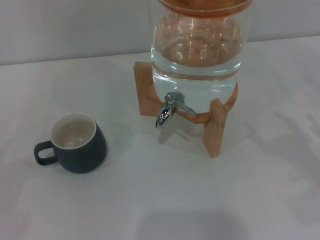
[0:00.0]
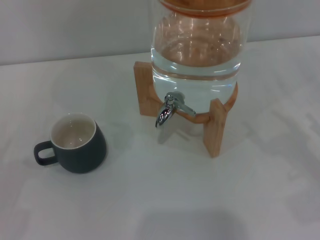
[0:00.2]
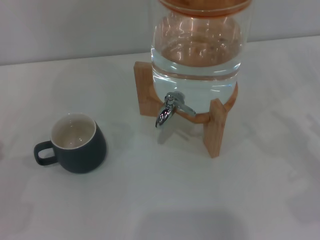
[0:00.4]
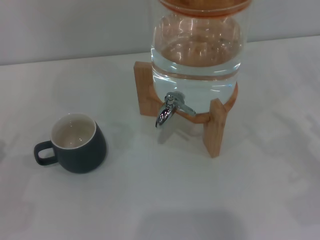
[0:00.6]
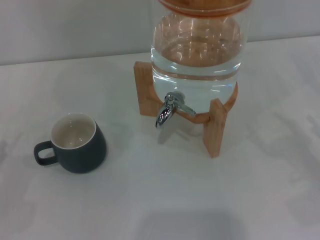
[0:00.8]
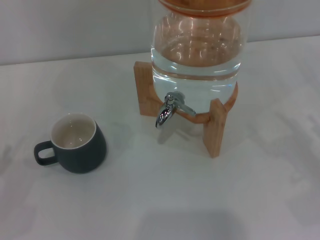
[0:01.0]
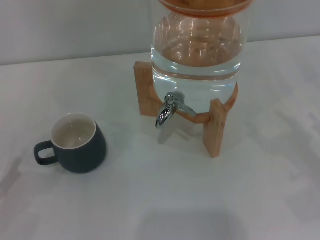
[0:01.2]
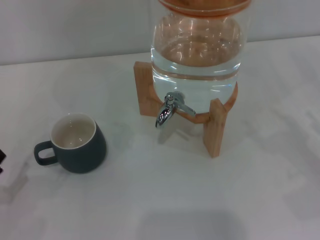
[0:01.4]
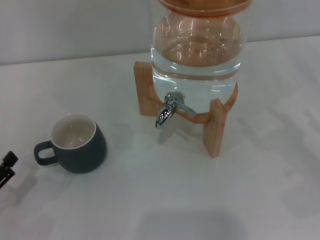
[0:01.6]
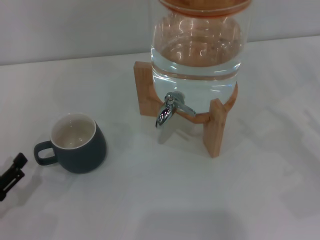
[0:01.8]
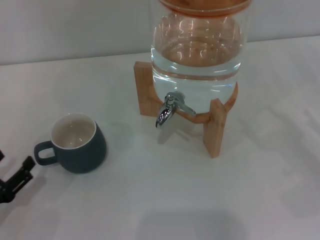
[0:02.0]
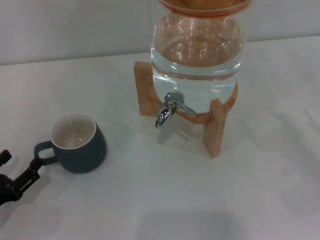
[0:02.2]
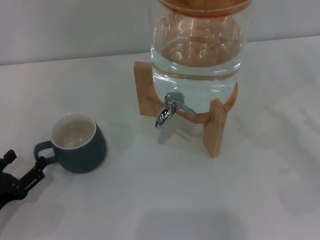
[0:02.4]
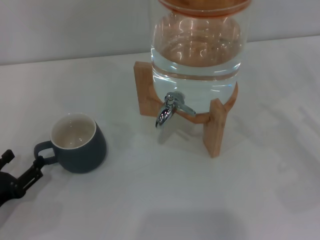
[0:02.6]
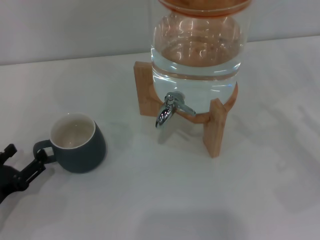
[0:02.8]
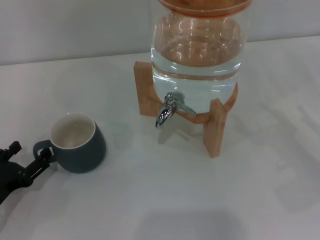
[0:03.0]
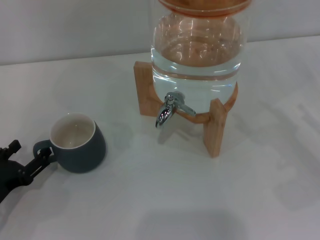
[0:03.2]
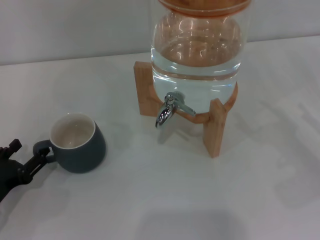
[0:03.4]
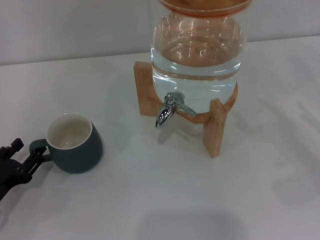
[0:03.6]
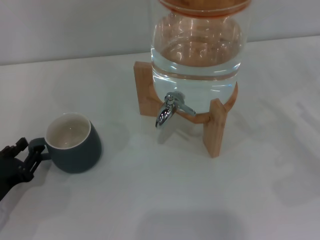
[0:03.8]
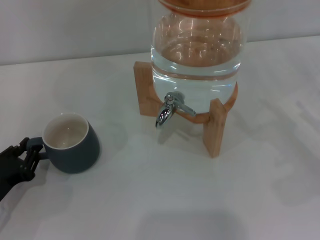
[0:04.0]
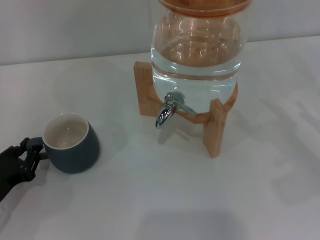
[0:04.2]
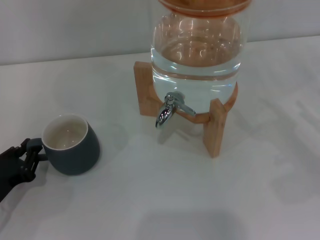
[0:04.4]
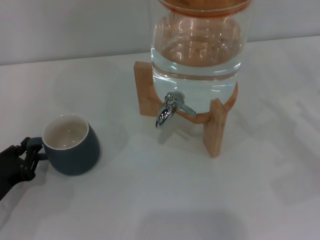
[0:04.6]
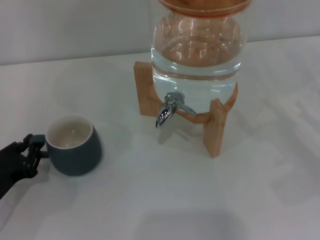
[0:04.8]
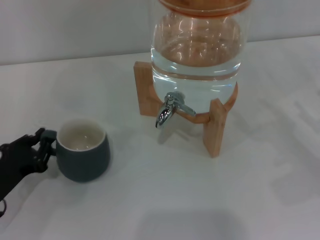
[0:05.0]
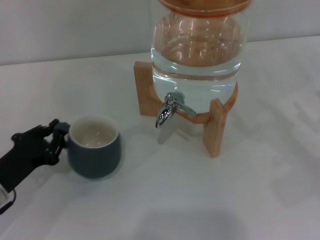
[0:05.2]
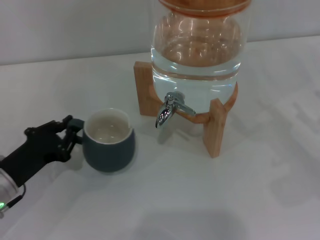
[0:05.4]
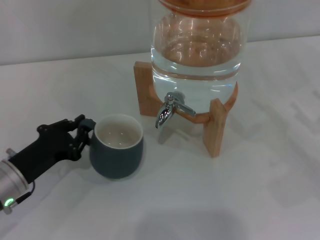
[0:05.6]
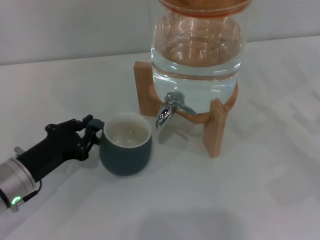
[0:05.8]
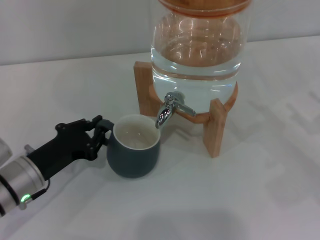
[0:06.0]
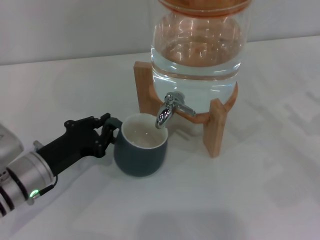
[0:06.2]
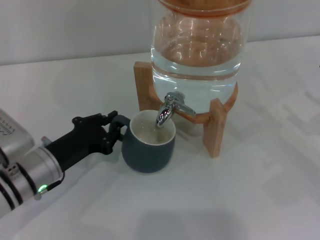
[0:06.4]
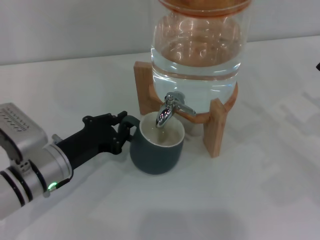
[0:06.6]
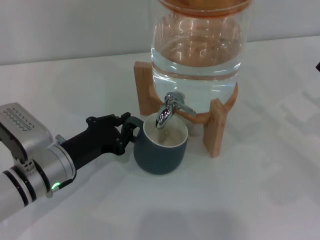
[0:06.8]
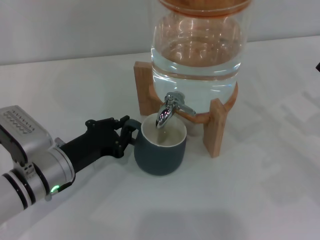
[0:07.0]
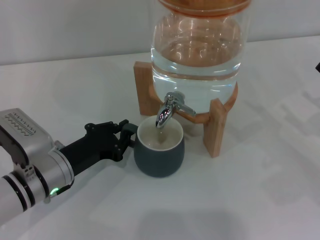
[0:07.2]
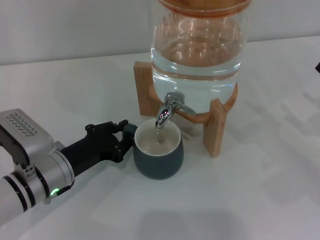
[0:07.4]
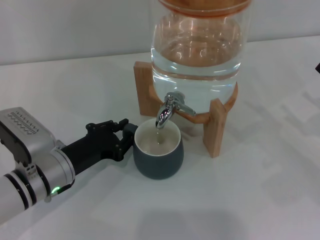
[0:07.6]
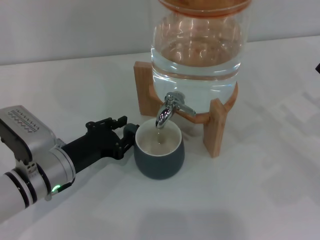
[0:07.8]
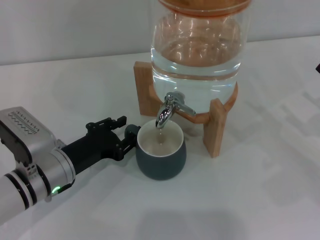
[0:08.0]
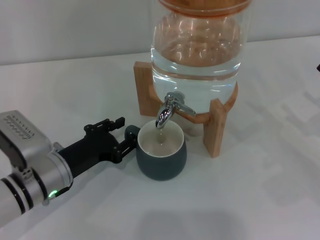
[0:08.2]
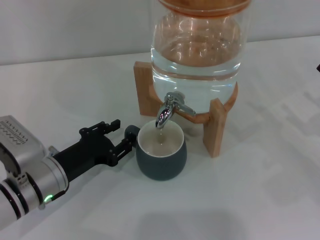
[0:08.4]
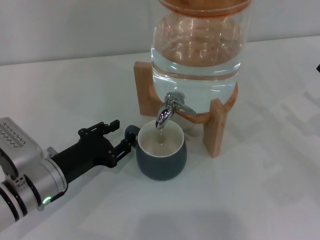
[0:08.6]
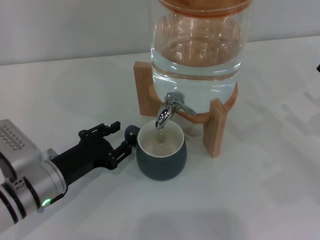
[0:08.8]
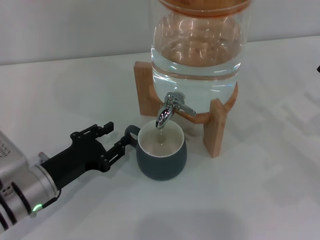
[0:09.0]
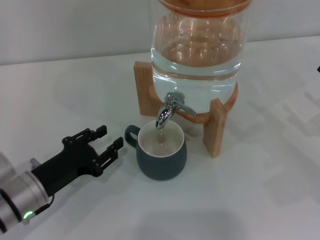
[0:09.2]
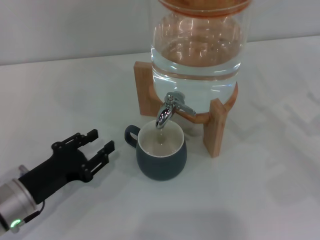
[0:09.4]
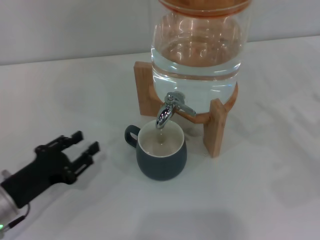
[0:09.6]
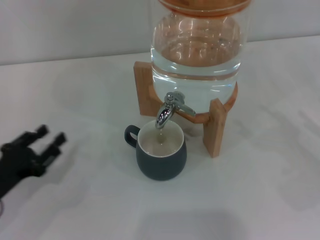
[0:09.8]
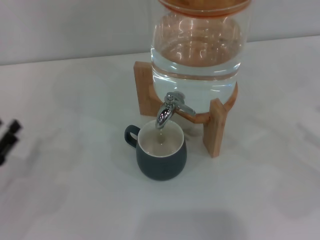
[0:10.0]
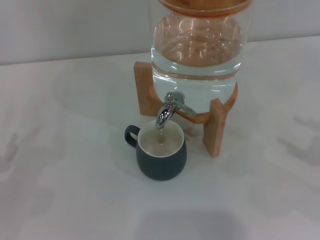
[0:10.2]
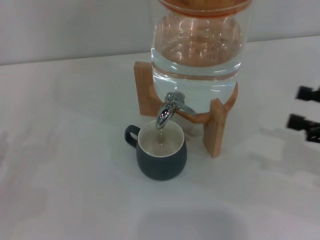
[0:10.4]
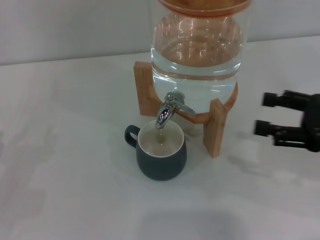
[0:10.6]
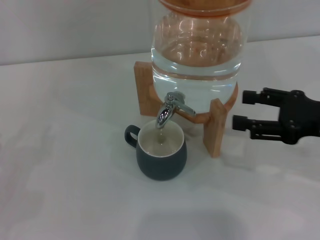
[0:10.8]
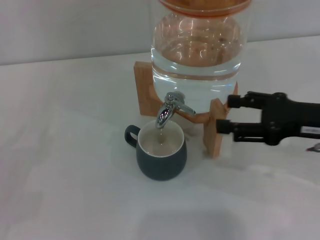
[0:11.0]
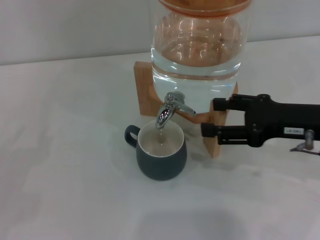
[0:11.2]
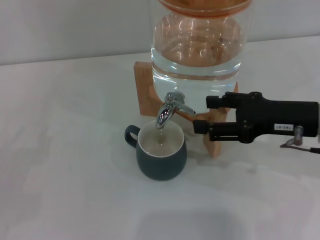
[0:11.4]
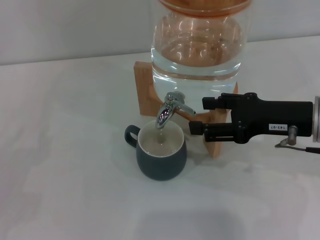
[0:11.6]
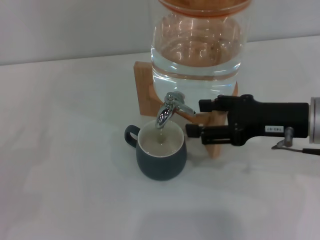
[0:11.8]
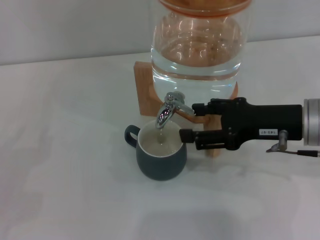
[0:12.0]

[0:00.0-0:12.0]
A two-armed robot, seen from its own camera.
Task of the whole recording: the left gripper pick up the black cup and place it horizontally under the faucet, the right gripper turn on the faucet to fill the cup, and then turn off the faucet.
Step, 0:00.0 to 0:09.2: Move the cup beneath the water dispenser nozzle with the left gripper.
0:01.6 to 0:03.0: The left gripper moves approximately 5 cm.
0:03.0 to 0:04.4: The left gripper closes up.
0:04.4 to 0:06.0: The left gripper shifts approximately 10 cm to the right.
0:06.0 to 0:07.6: The grippers make only small movements.
0:07.6 to 0:09.0: The left gripper opens its fingers.
0:09.0 to 0:10.4: The left gripper travels to the left by roughly 15 cm. Meanwhile the right gripper goes some 10 cm upward.
0:10.4 to 0:12.0: The right gripper shifts about 15 cm to the left and forward.

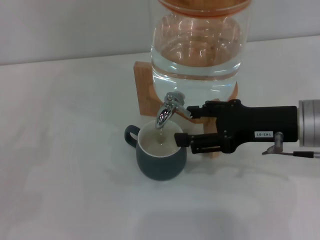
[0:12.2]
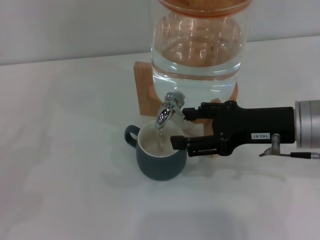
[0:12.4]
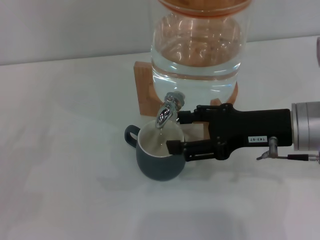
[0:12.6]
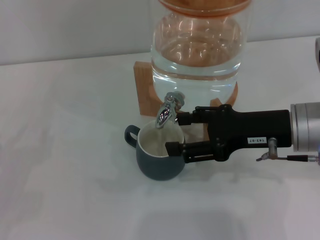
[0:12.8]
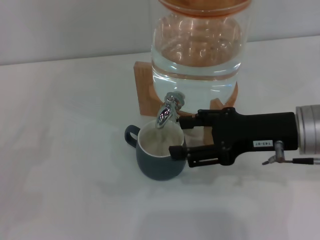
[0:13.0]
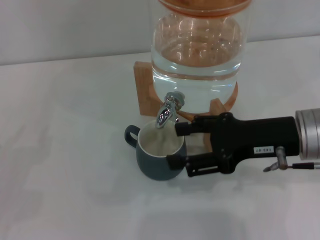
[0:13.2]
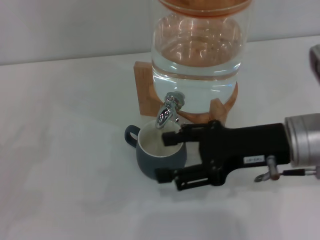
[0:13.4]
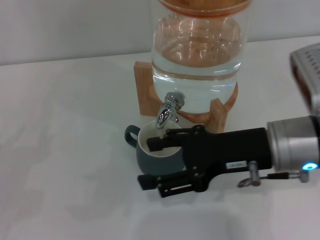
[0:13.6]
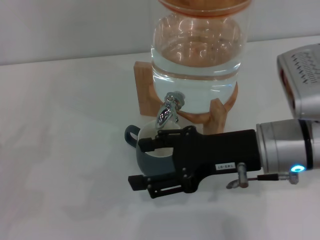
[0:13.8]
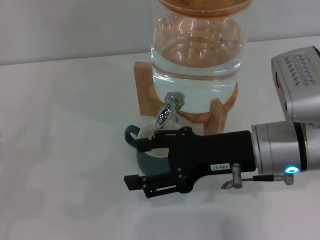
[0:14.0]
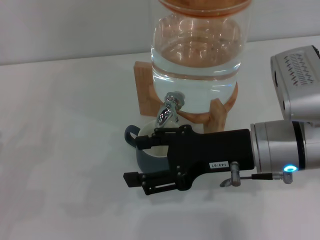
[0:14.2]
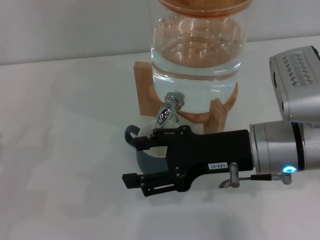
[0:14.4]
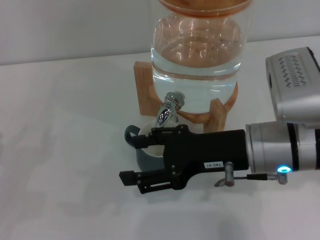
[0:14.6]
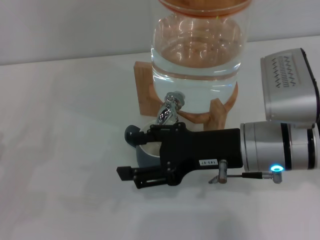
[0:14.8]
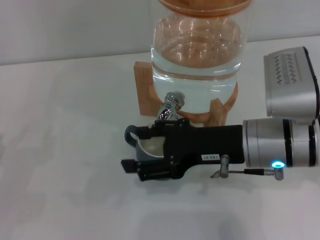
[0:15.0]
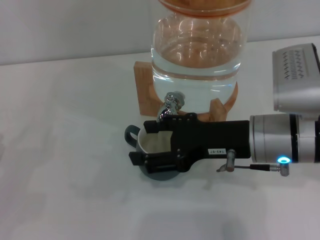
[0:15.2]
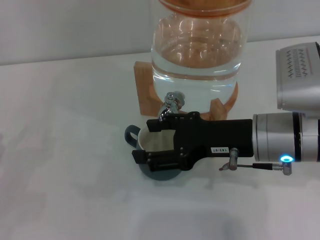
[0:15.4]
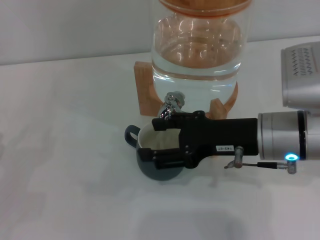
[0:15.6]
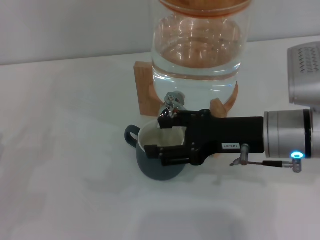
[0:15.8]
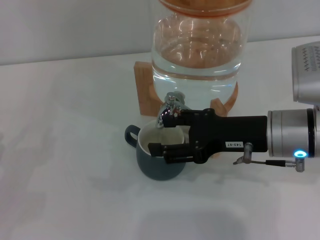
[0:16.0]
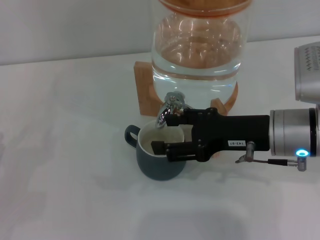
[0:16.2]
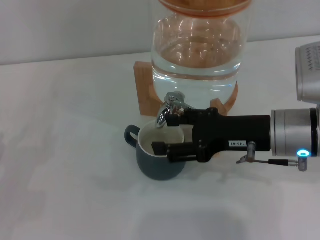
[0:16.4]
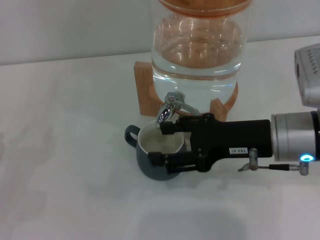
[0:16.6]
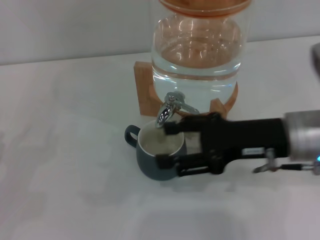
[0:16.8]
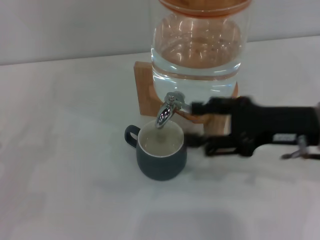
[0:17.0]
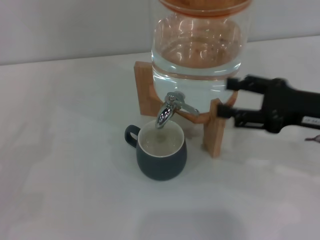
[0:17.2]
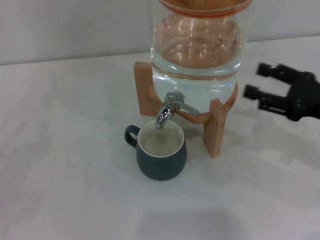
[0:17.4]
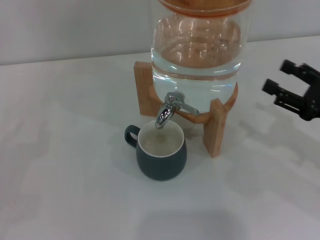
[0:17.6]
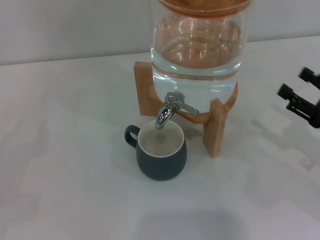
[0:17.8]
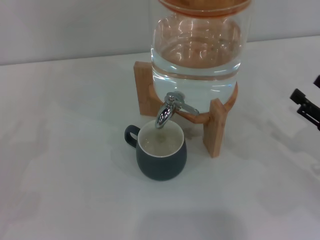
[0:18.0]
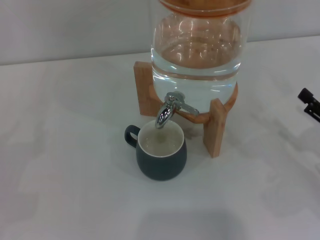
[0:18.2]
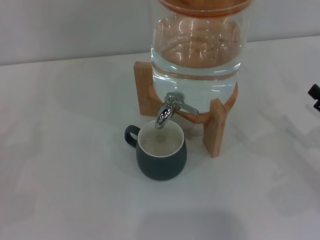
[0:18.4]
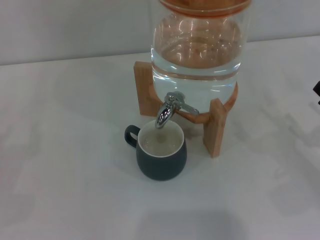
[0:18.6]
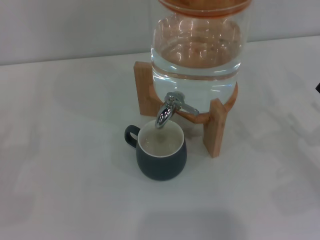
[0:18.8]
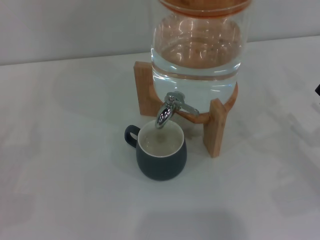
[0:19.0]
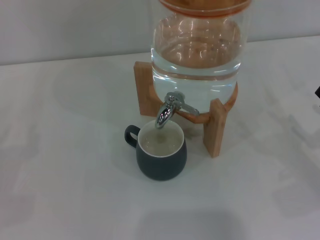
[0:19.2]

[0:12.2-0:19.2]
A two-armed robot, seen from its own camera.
Task of the whole recording: the left gripper pick up the black cup and place it horizontally under the faucet, the right gripper turn on the faucet to fill the cup, and then turn off the faucet.
Step, 0:13.2 to 0:16.4: Close the dispenser valve with the right gripper.
0:12.2 to 0:13.6: The grippers move only a little.
0:13.6 to 0:16.4: The grippers move only a little.
0:16.4 to 0:17.8: The right gripper shifts some 15 cm to the right and downward.
0:17.8 to 0:19.2: There are only small adjustments of the grippers.

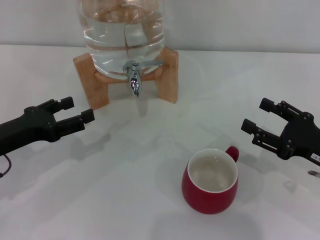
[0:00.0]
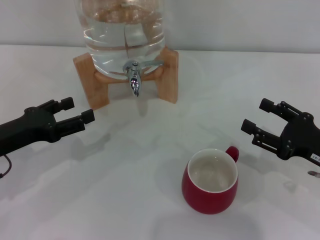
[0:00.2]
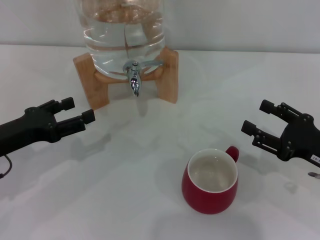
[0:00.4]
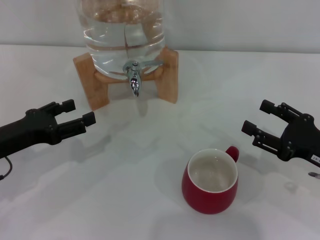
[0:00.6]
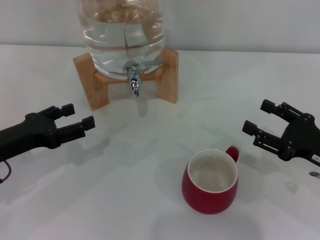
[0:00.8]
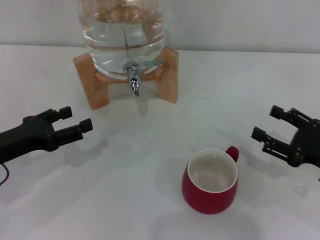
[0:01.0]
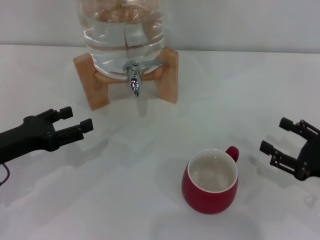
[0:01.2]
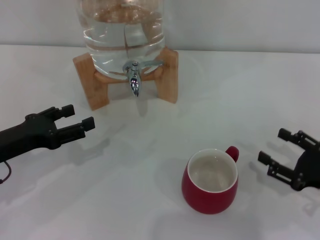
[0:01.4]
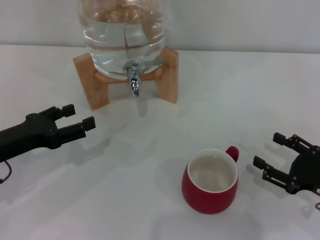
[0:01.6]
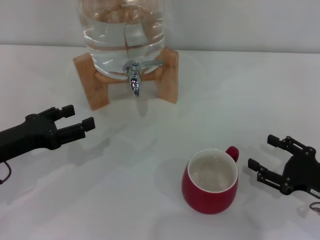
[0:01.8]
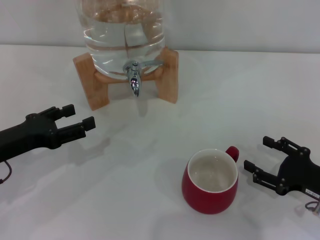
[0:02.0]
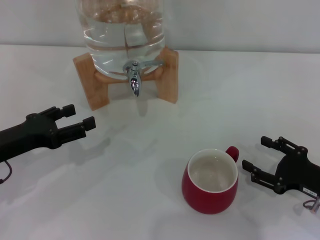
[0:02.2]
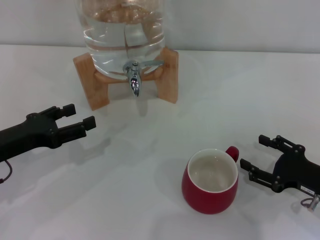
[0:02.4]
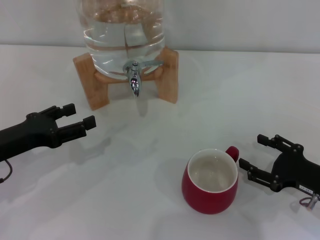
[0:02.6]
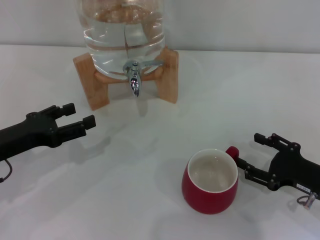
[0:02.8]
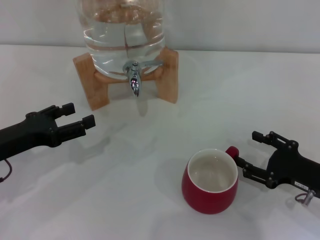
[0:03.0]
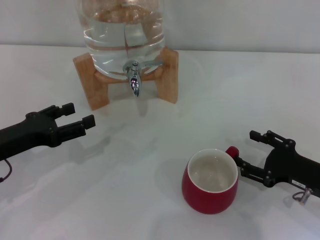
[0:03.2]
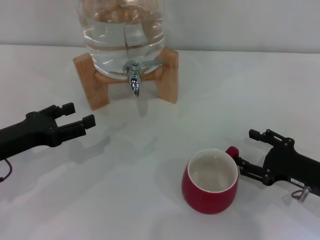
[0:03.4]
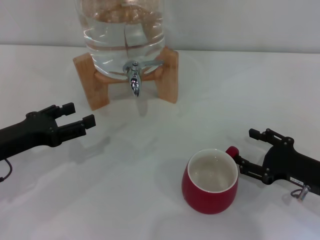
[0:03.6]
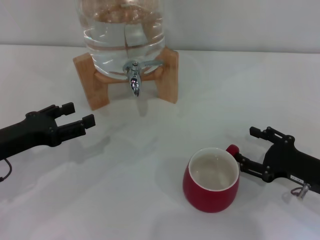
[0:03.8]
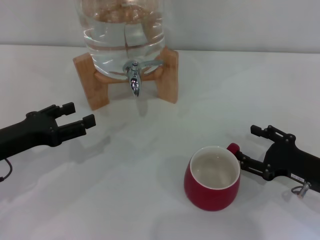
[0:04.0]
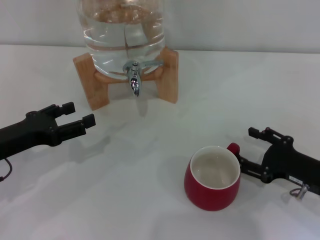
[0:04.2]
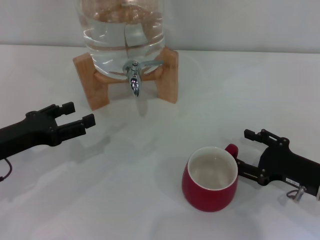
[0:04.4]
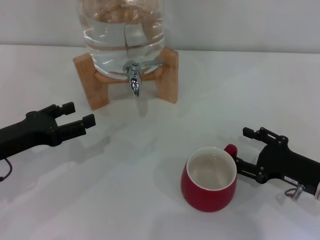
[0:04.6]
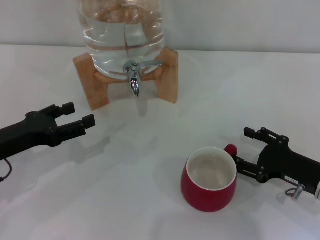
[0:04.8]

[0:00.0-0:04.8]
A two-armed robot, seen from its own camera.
Task of the whole recording: the right gripper pick up the red cup and place it horizontally under the faucet, the left gripper turn on the faucet to fill the cup, and then turn off the faucet.
0:00.0 to 0:01.6: The right gripper changes place by about 5 cm.
0:01.6 to 0:03.2: There are only small adjustments of the grippers.
0:03.2 to 0:04.8: The two grippers keep their place.
